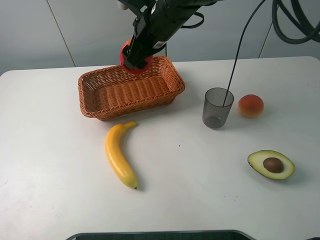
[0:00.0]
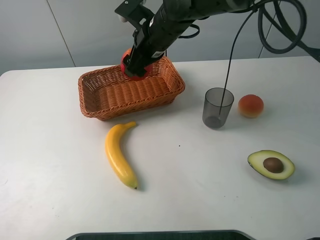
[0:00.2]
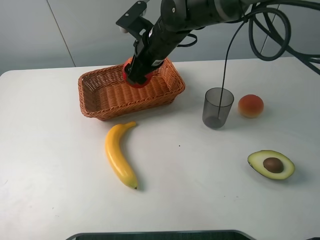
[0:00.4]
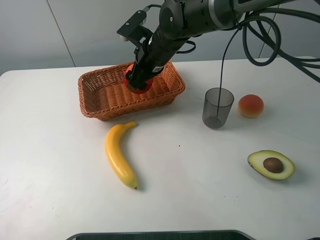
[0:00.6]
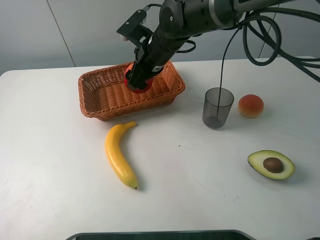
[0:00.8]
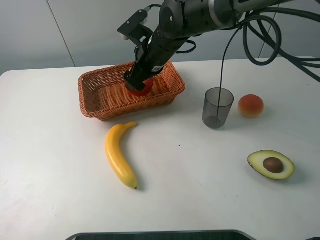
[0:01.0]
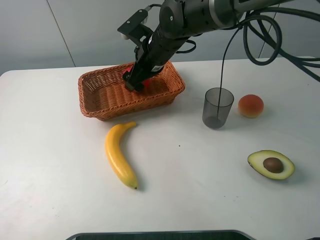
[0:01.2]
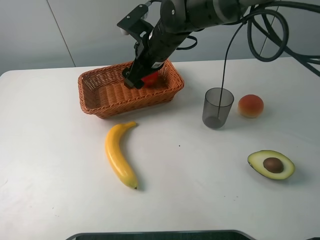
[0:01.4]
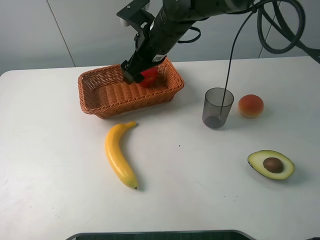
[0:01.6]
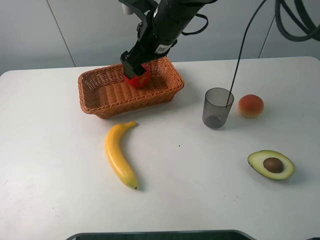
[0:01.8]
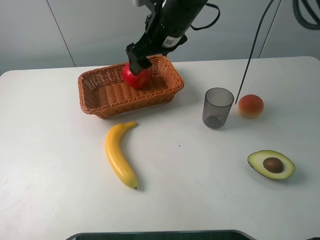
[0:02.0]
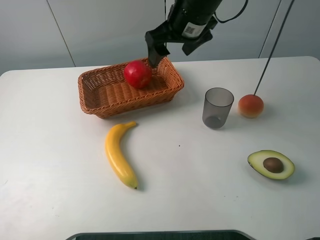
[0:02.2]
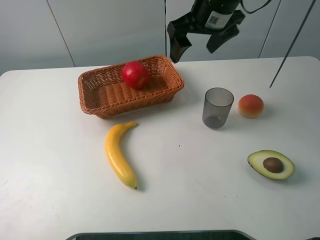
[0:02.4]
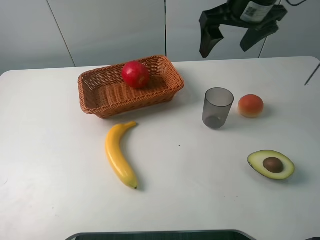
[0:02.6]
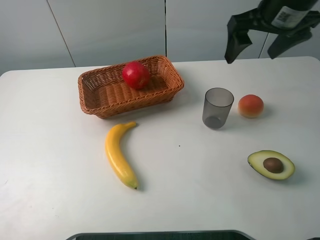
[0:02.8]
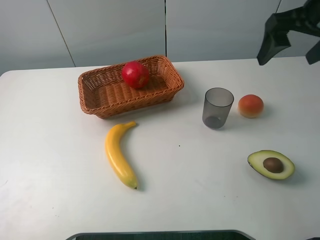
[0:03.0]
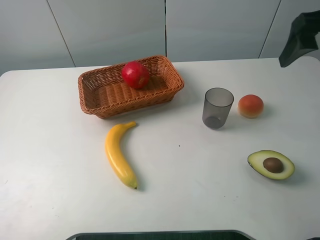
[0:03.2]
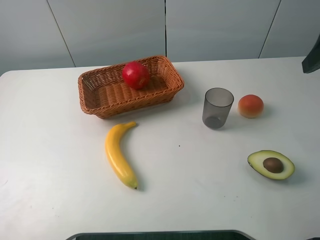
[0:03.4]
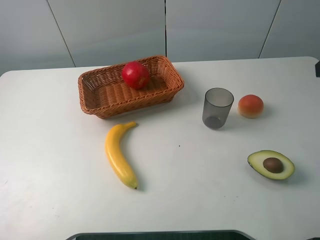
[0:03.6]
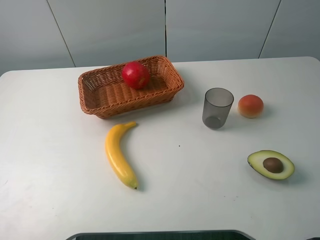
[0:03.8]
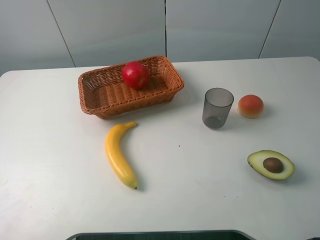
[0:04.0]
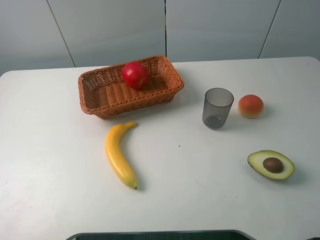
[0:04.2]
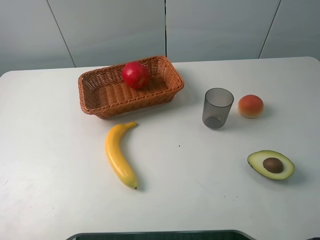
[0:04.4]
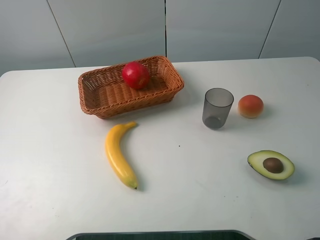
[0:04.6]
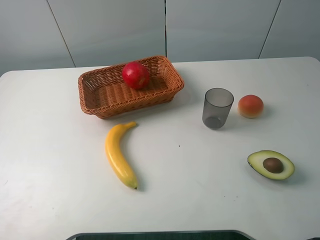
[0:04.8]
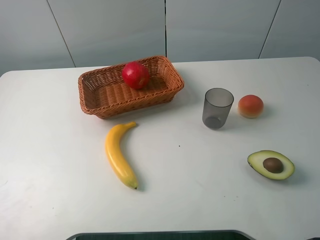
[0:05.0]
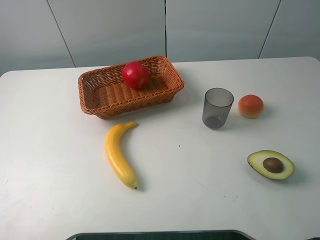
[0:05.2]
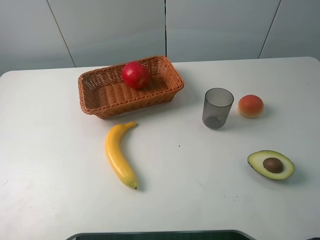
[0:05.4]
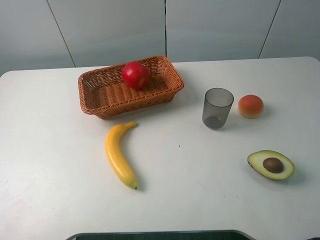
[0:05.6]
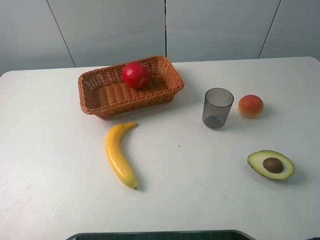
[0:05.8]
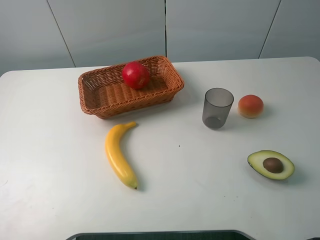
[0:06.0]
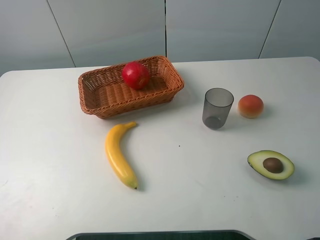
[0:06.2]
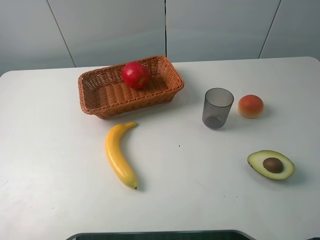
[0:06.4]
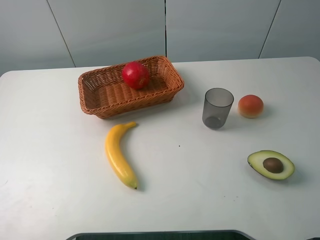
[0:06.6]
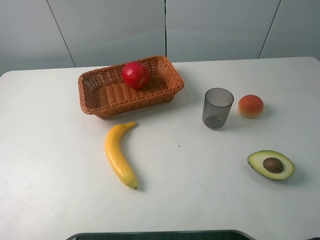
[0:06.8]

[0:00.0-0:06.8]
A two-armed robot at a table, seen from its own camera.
Task of the whole recording: randomly pick up an item from the table and put it in the basket.
0:00.0 to 0:01.4: The right gripper opens its fingers.
0:01.4 to 0:02.8: The right gripper shifts about 25 cm to the right and upward.
0:02.8 to 0:04.0: The right gripper heads backward, covering some 25 cm.
0:05.4 to 0:06.8: Both grippers stay put.

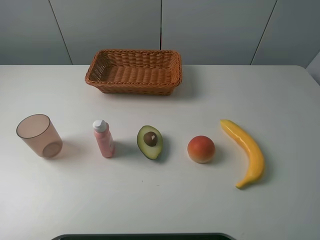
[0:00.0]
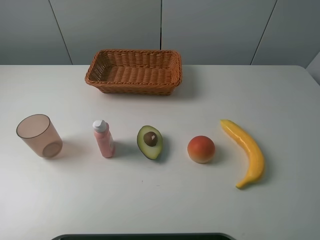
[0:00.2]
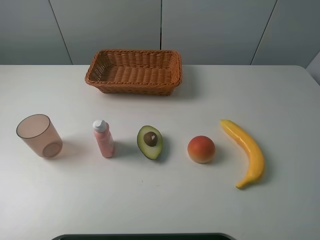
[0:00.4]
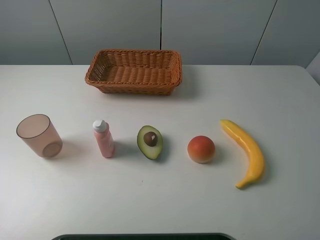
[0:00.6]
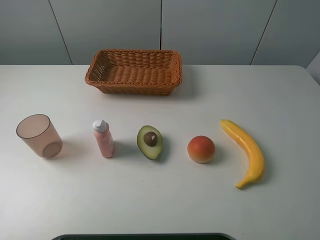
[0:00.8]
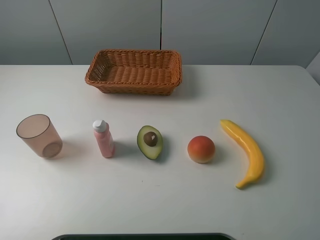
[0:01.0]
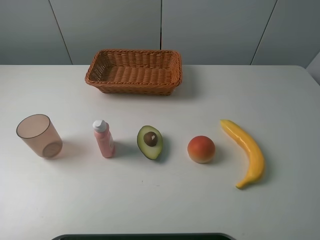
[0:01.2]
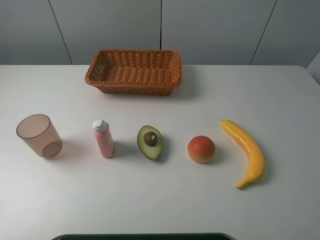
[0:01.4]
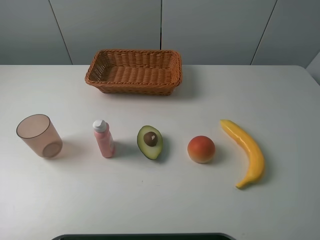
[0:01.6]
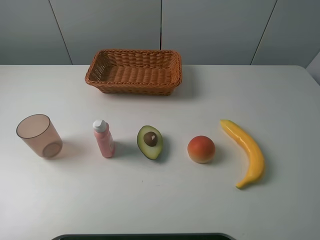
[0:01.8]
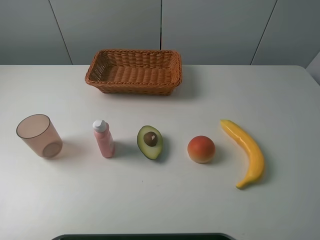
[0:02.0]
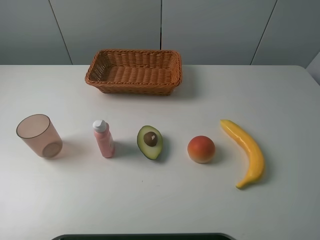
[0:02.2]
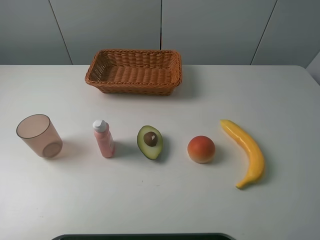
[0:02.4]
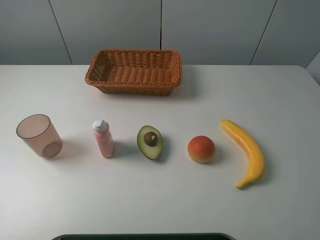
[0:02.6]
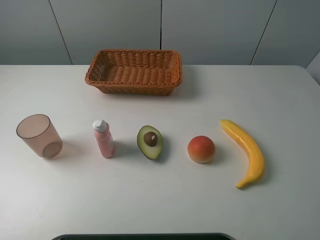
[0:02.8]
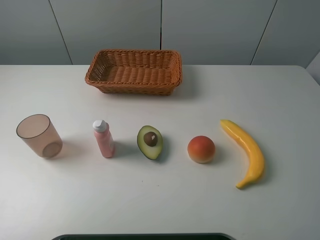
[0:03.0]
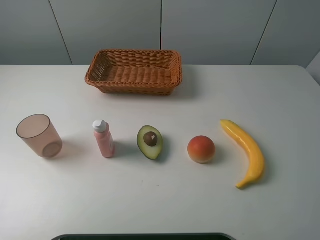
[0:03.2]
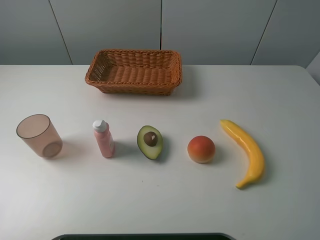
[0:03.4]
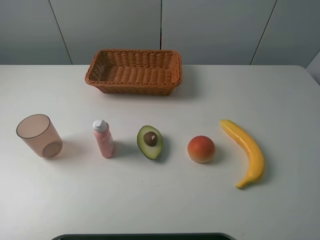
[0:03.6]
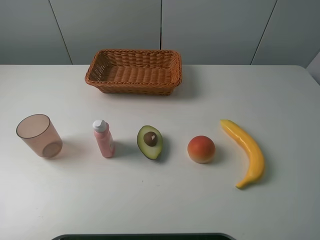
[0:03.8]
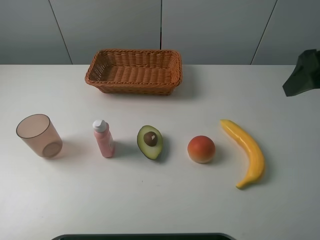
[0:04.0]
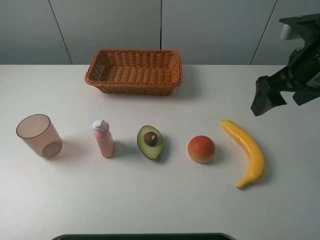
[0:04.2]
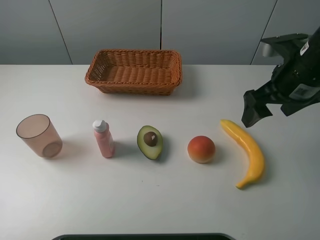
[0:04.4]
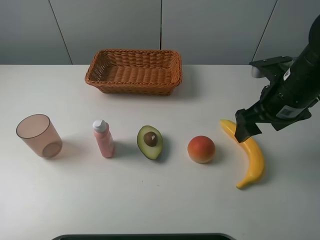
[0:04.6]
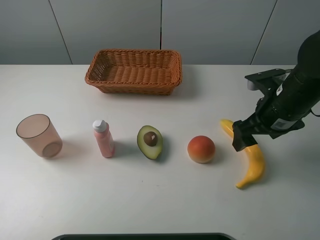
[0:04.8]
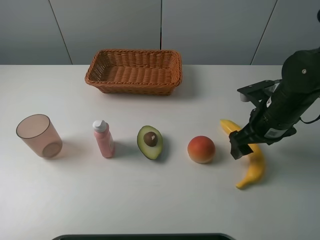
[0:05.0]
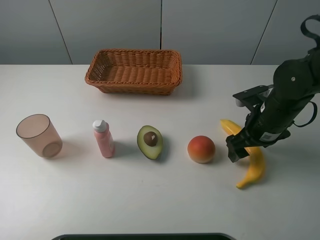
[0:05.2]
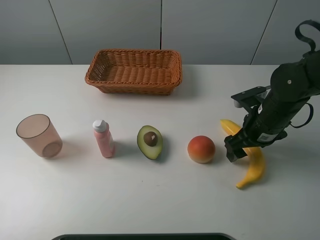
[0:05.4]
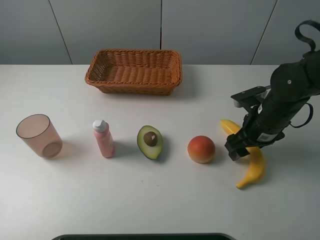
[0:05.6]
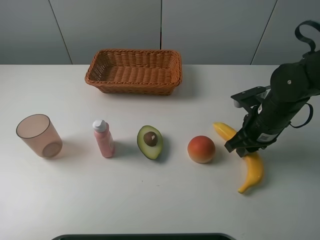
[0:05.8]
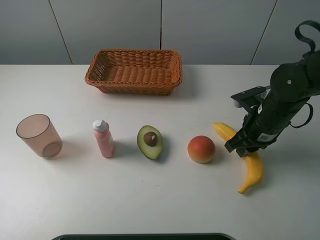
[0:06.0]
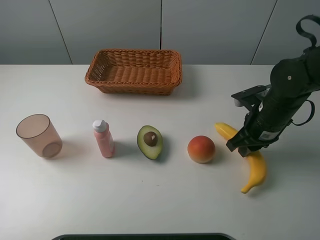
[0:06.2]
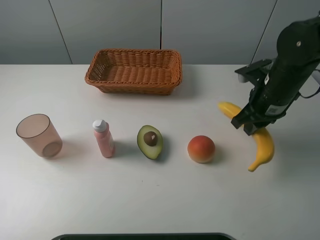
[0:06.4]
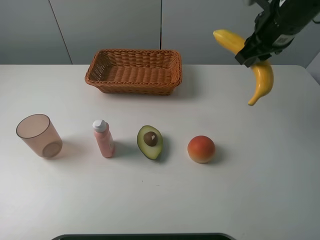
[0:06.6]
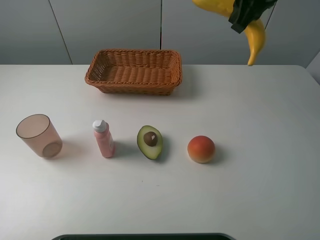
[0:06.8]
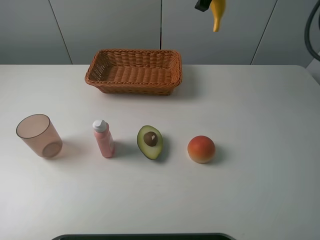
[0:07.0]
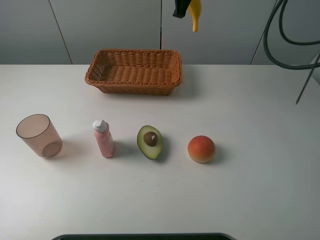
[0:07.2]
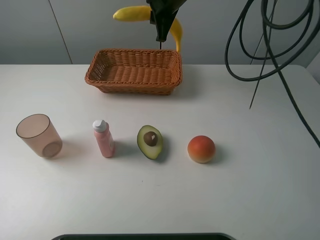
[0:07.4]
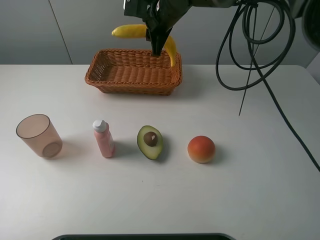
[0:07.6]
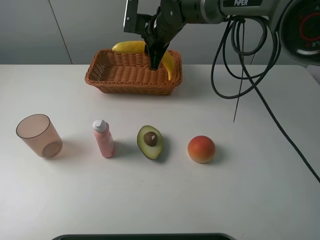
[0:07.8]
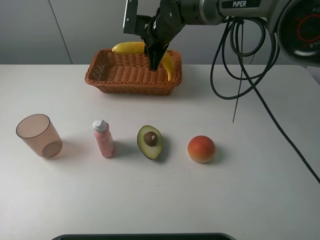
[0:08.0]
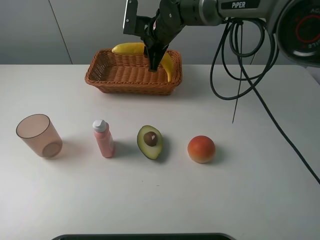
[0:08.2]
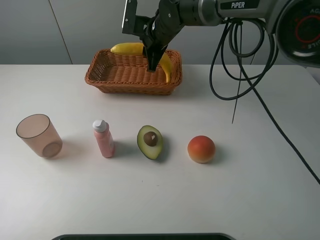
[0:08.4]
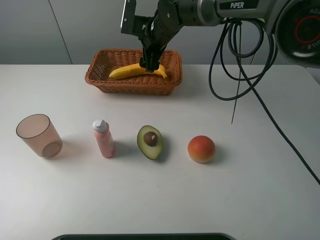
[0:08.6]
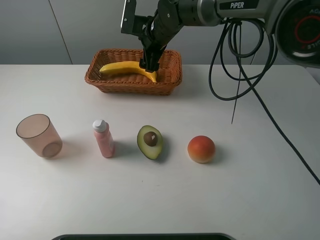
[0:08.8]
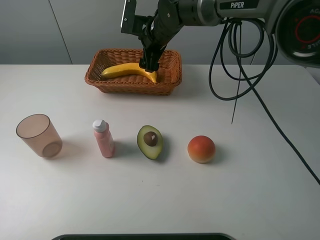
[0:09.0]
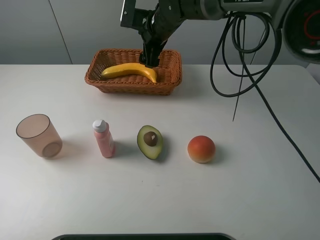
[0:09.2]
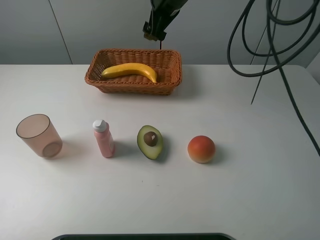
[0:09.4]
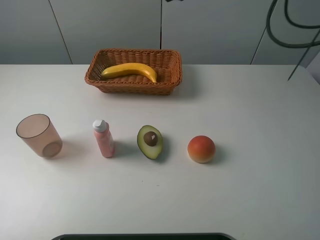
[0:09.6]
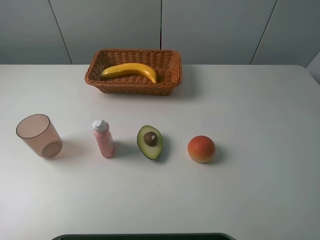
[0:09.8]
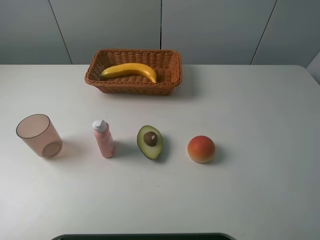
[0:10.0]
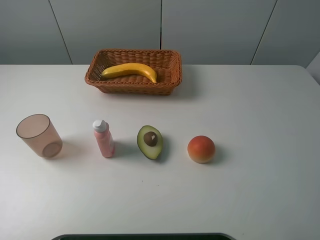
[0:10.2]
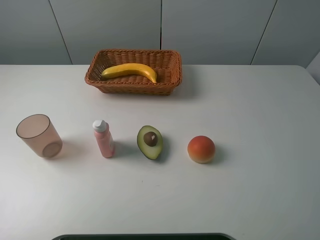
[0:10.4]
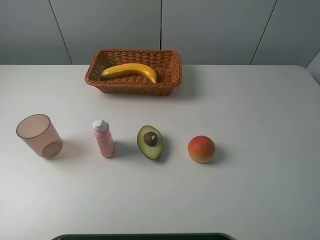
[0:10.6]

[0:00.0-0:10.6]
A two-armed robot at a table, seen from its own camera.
Task of the whole recording: randomly pick up an item from the table and put it in the basket.
Step, 0:00.0 to 0:06.0: Grasp the banana with the right gripper.
Step, 0:06.2 to 0:09.2: Place the banana into the basket with the right gripper.
0:00.0 to 0:03.0: Neither gripper changes place.
0:03.0 to 0:04.6: The right gripper goes about 25 cm forward.
0:04.6 to 0:06.0: The right gripper moves downward, roughly 10 cm, and closes its fingers.
0:06.0 to 0:07.6: The right gripper moves to the left, forward and upward, about 30 cm.
0:07.6 to 0:09.0: The right gripper opens.
0:09.0 to 0:10.6: The right gripper moves backward, upward and to the right, roughly 50 cm.

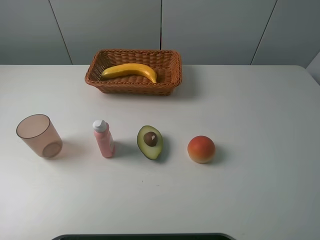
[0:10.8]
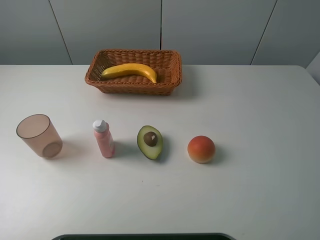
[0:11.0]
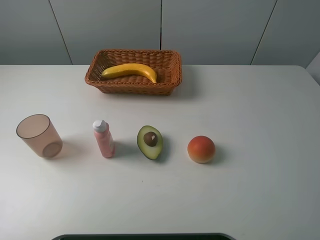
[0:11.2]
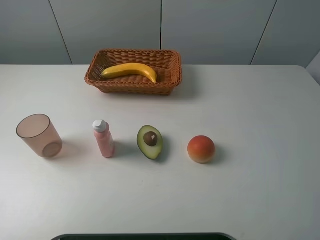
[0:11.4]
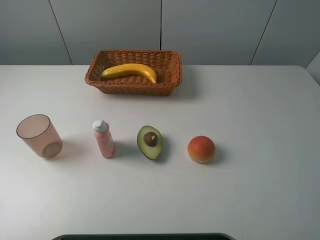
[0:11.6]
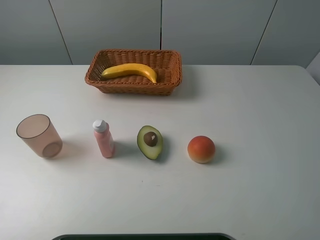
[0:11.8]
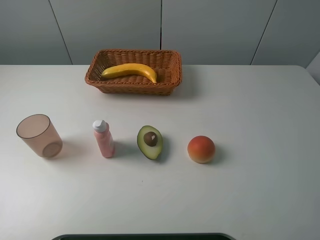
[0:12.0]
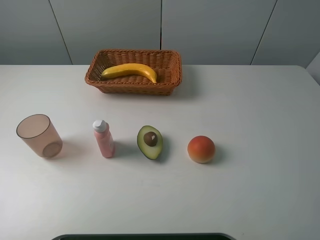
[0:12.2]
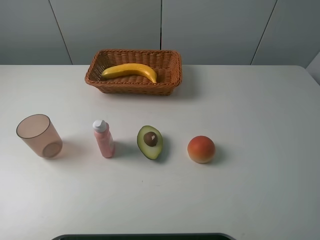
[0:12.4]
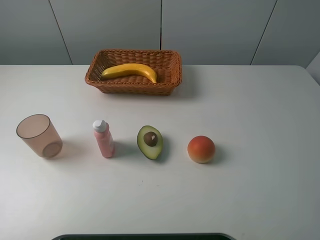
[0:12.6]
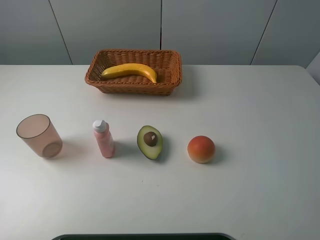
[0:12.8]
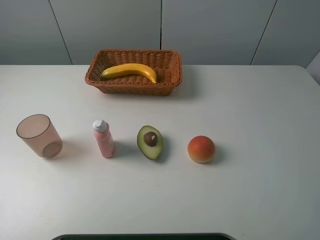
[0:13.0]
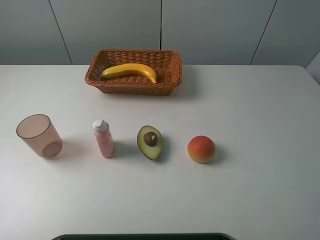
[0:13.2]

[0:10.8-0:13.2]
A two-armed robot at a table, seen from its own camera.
Task of the whole recording: randomly pick up an item from the table and put it in the basket.
0:12.0 to 0:13.2: Both grippers stay about where they are.
